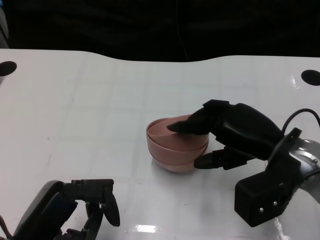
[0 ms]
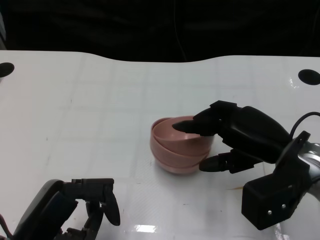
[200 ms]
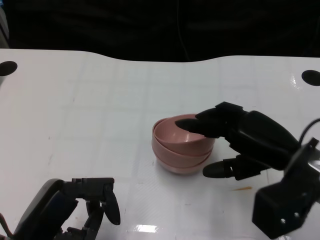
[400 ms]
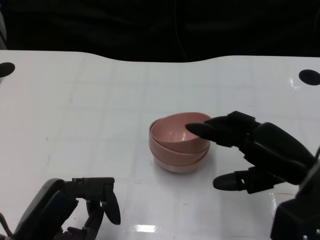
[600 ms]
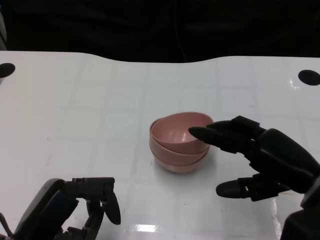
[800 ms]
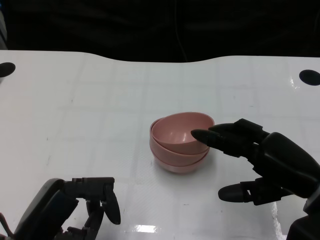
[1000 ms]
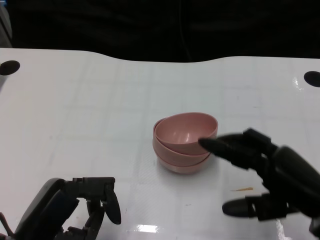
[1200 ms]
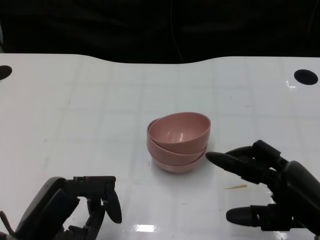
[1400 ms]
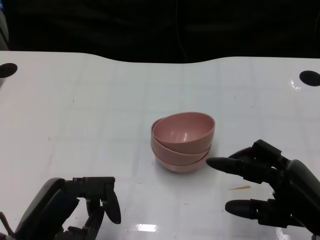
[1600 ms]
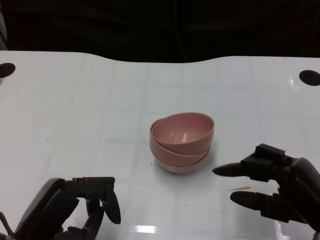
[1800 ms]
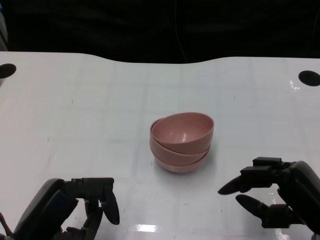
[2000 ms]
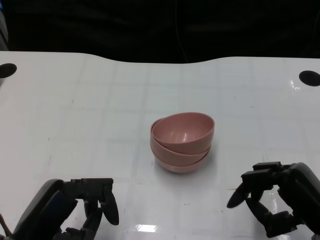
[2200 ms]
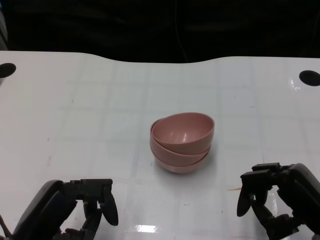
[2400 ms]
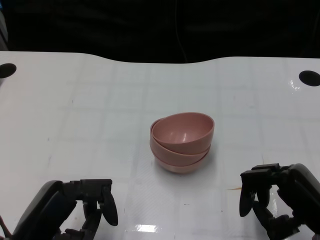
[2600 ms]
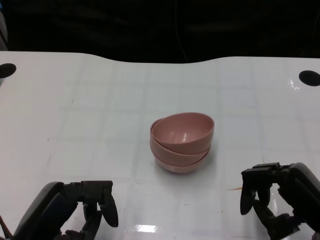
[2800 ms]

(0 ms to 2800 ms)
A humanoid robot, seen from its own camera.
Task of the whole recording: Pick up the bowl on one side of the table and place it on top of the middle bowl, then pick up the bowl on the other side of the table and place it on top of the middle bowls.
0 ms - 1400 ms: The right hand heads backward and to the right, covering approximately 10 cm.
1400 ms - 2800 ms: The hands stay close to where they were, moving slightly.

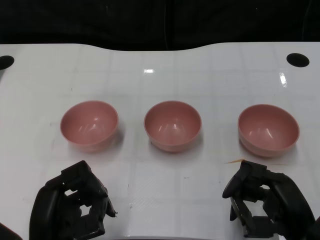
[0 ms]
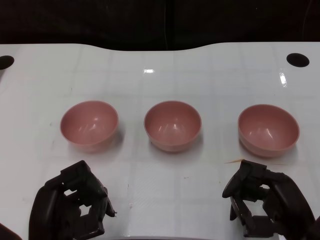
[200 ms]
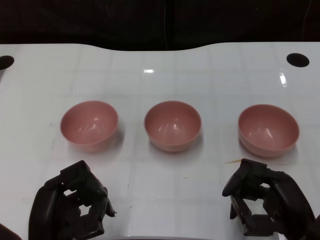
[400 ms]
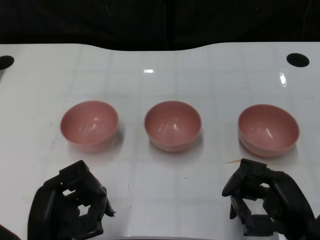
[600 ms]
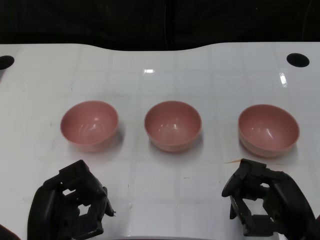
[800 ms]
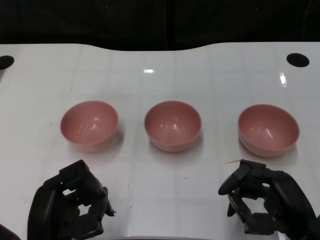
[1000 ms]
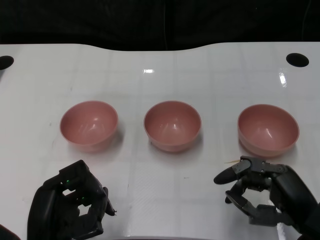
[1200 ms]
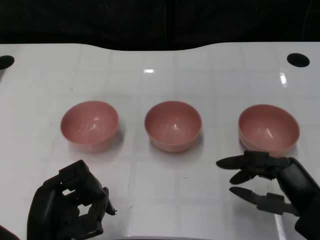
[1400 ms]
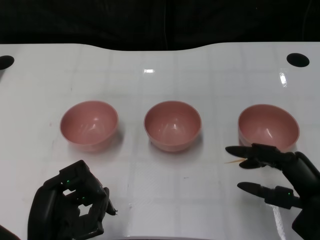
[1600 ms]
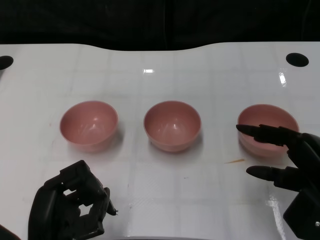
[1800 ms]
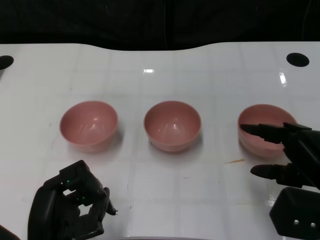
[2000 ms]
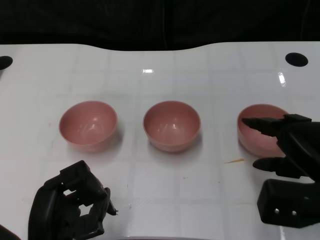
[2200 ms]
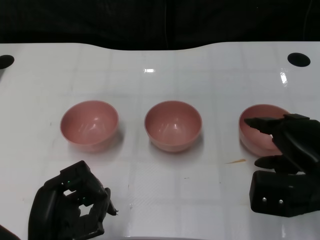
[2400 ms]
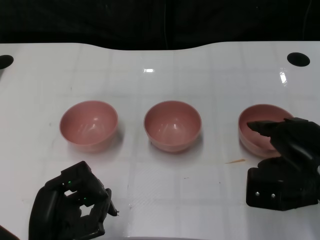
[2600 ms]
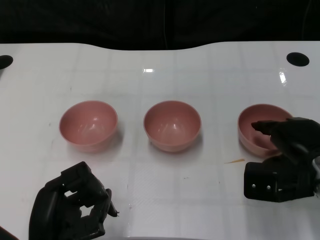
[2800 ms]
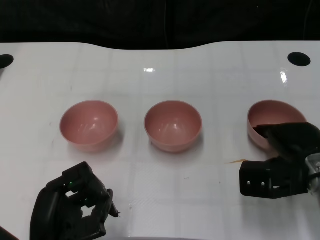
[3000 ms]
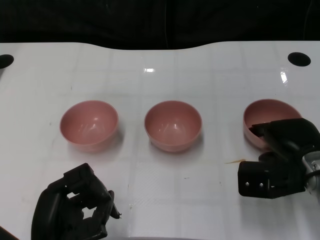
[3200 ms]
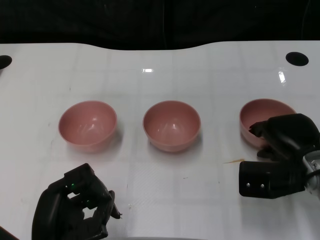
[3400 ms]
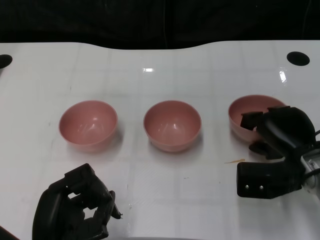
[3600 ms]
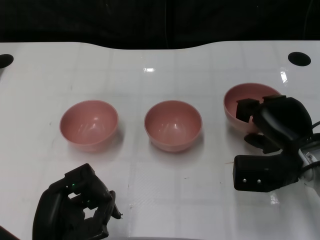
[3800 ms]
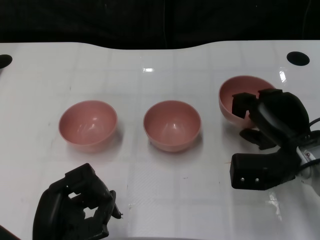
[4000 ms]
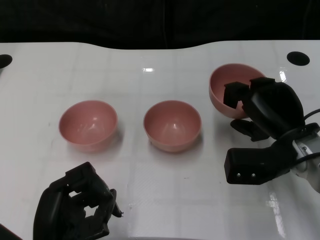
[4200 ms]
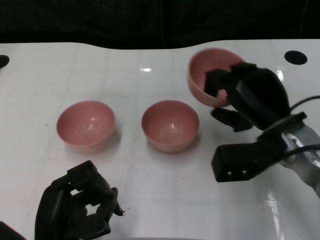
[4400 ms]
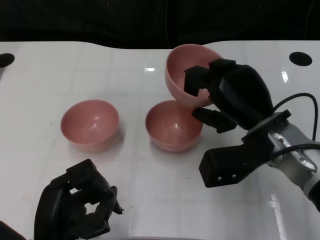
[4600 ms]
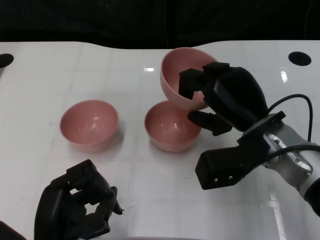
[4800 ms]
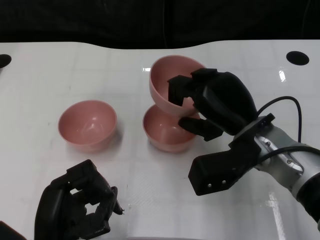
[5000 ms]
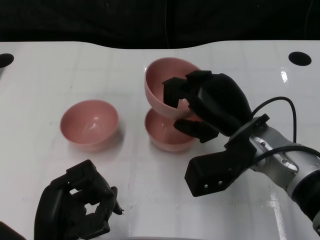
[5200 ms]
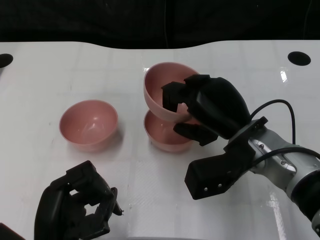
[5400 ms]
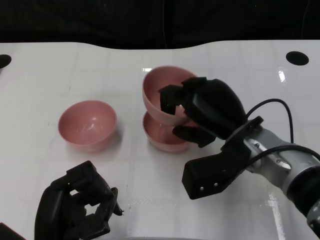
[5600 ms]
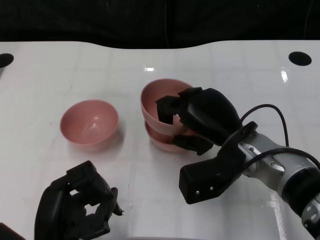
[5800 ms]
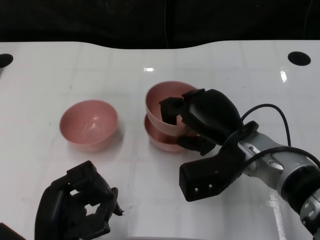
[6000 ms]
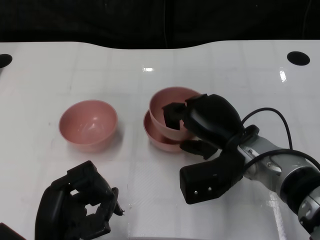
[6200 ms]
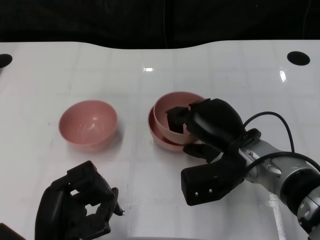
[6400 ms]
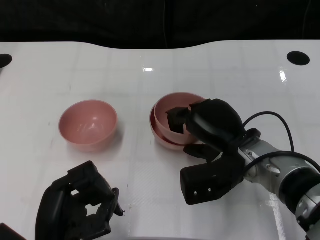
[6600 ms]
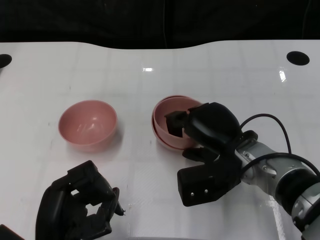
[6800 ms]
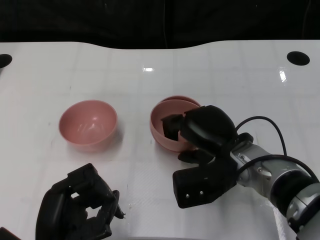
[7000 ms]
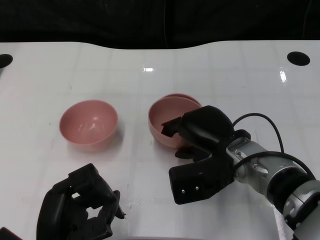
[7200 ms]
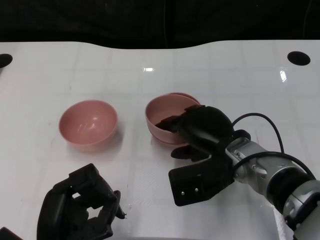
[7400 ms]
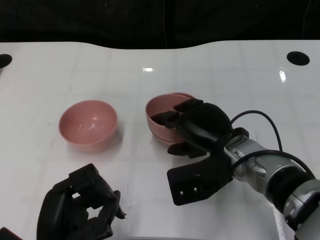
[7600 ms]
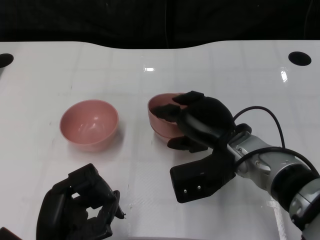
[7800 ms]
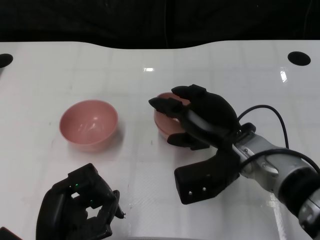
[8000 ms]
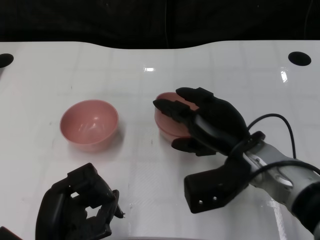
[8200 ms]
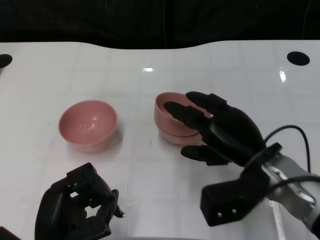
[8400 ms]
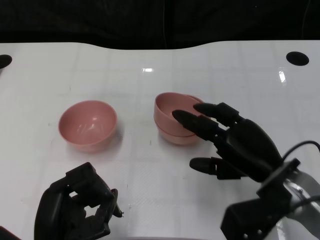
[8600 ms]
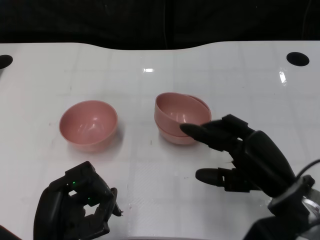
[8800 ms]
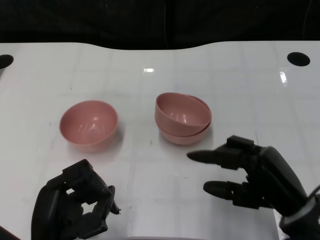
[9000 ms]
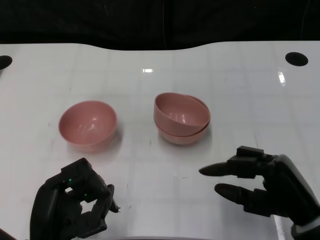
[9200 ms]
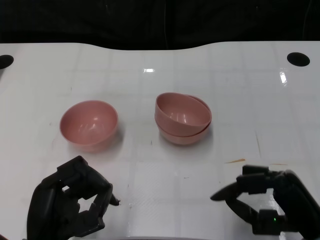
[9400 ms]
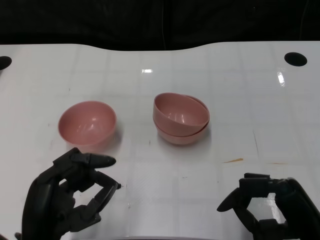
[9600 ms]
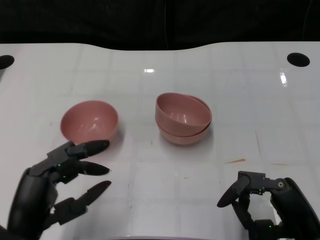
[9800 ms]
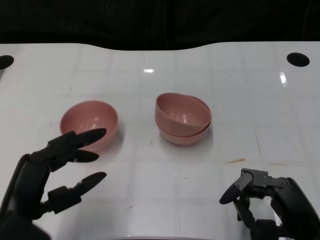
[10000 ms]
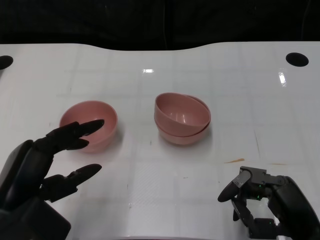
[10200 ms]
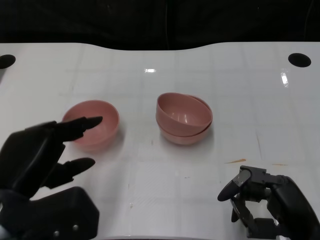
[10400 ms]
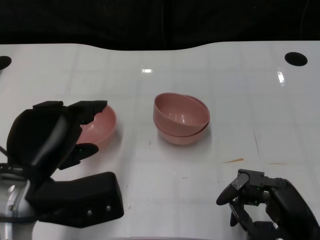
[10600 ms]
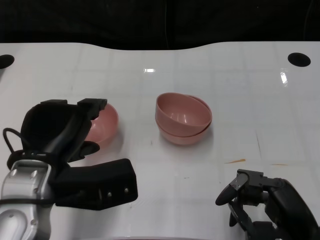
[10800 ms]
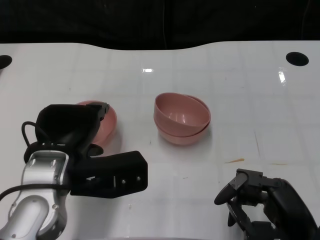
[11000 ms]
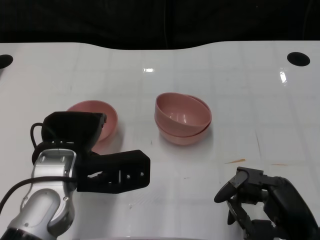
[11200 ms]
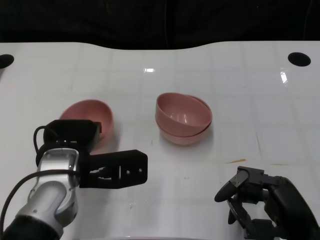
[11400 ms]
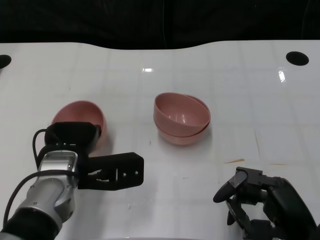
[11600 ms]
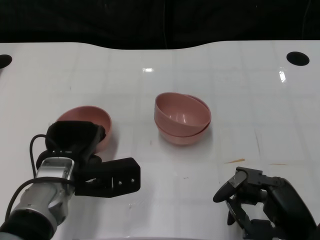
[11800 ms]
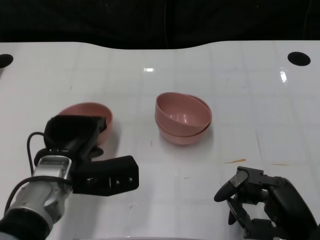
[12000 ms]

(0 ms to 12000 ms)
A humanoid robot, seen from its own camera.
Task of the whole recording: Pick up the bowl on one side of the table and place it on top of the middle bowl, then pick up the bowl on the other side of the table and place it on top of the middle bowls.
Step, 1000 ms - 3600 ms: Grasp the bowl on the right with the right gripper.
Step, 3800 ms - 8600 ms: Place the bowl on the right onto the bowl in the middle with right gripper.
Step, 8800 ms - 11800 ms: Grasp the bowl on the left with the left gripper.
1600 ms - 3000 ms: The right hand moves forward, about 10 cm.
3000 ms - 4400 ms: The right hand is displaced to the left by about 5 cm.
4400 ms - 6000 ms: The right hand travels to the left by approximately 5 cm.
6000 ms - 7600 ms: The hands make only small movements.
7600 ms - 9000 ms: The right hand moves to the right and backward, about 15 cm.
9000 ms - 10400 ms: The left hand moves upward, some 10 cm.
10400 ms - 12000 ms: The left hand heads forward, downward and to the right, covering roughly 15 cm.

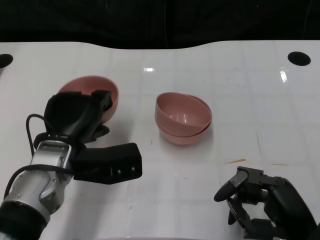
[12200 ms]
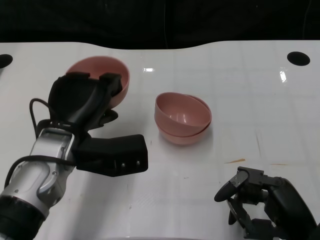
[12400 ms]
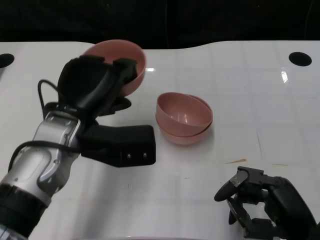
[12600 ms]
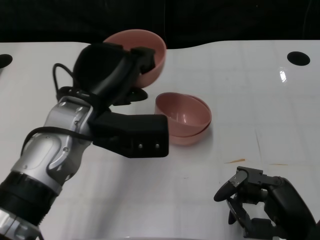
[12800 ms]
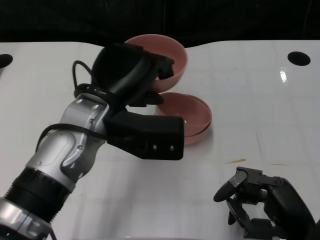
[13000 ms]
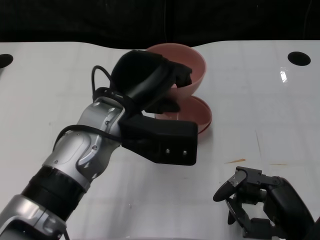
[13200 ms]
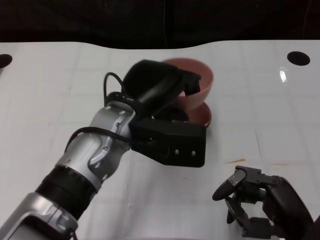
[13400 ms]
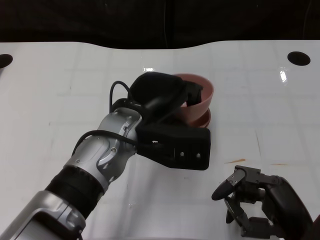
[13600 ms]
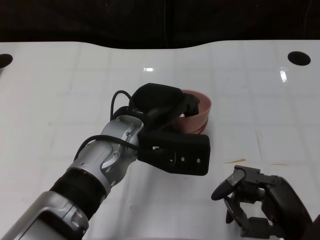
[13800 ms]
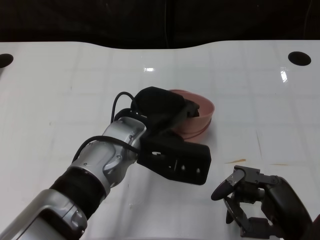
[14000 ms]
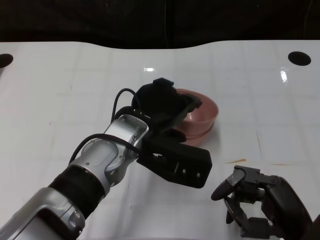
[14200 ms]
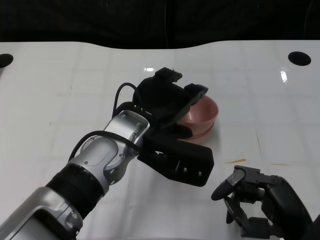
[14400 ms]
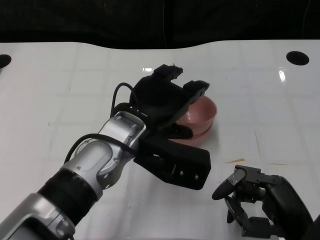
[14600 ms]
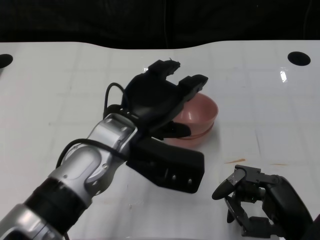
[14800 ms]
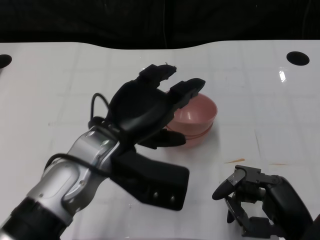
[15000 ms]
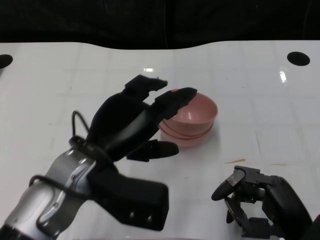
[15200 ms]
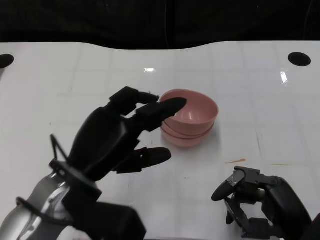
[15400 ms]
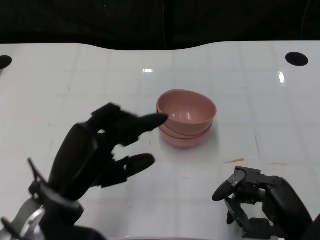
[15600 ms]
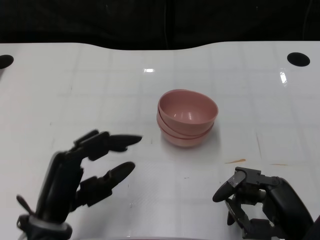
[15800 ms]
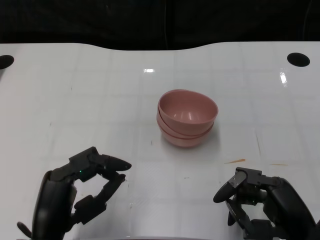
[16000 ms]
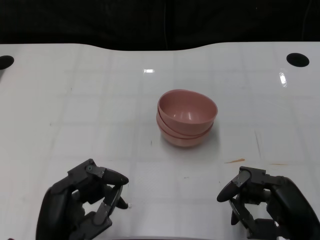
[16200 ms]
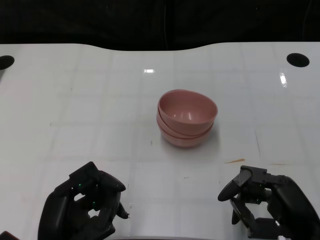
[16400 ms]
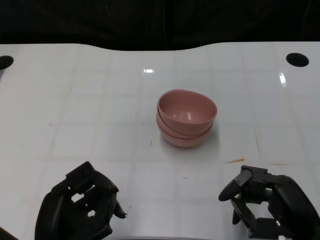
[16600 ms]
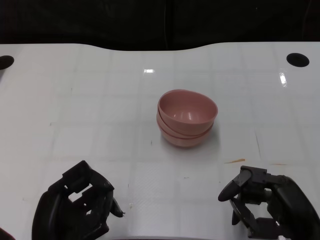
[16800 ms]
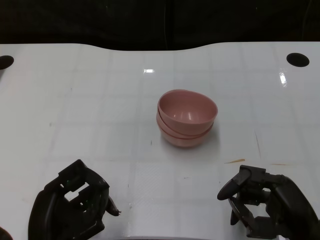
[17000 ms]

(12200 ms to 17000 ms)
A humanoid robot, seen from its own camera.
Task of the whole recording: Pick up the bowl on one side of the table and place it on top of the middle bowl, then pick up the bowl on the other side of the table and place it on top of the middle bowls.
Step, 12200 ms - 15200 ms: Place the bowl on the left onto the bowl in the middle with left gripper.
12200 ms - 13800 ms: The left hand goes some 10 cm to the right.
13800 ms - 15400 ms: The left hand moves to the left and backward, roughly 10 cm.
15400 ms - 17000 ms: The left hand moves backward and downward, approximately 10 cm.

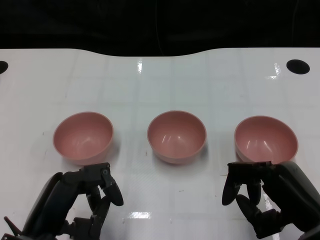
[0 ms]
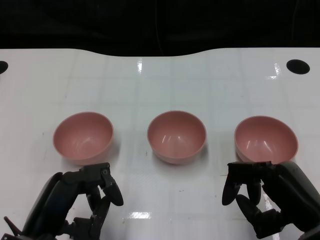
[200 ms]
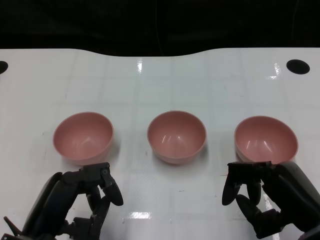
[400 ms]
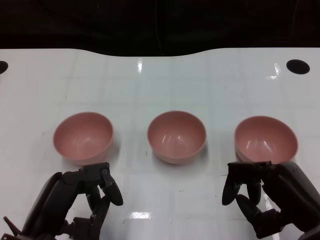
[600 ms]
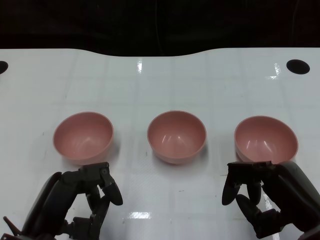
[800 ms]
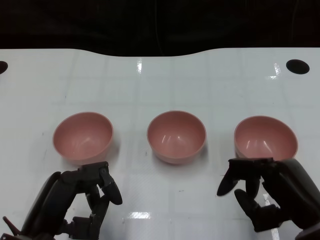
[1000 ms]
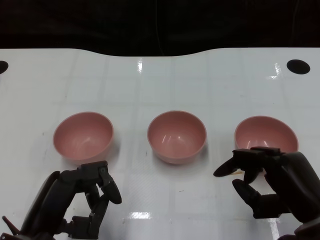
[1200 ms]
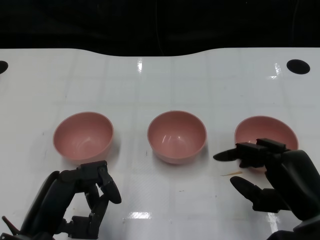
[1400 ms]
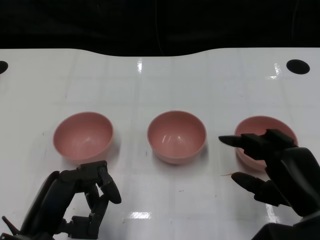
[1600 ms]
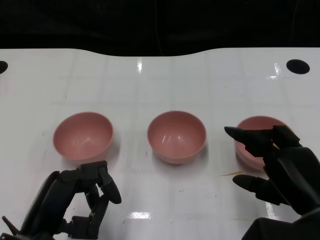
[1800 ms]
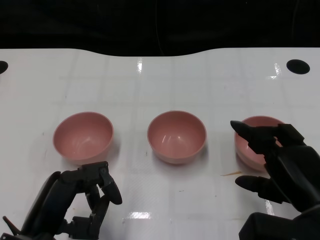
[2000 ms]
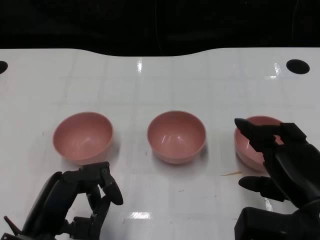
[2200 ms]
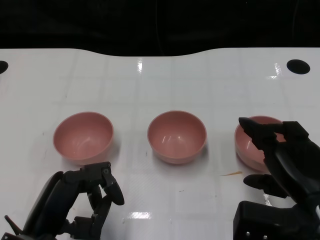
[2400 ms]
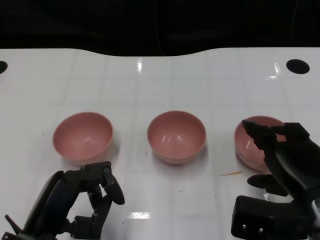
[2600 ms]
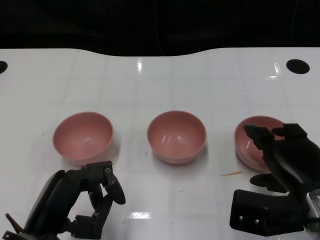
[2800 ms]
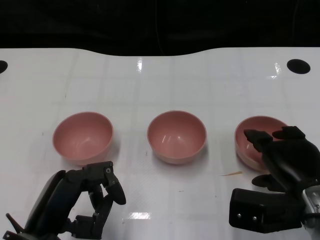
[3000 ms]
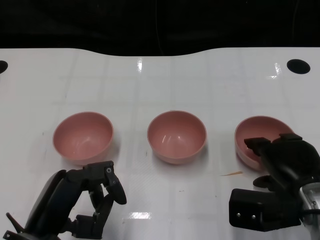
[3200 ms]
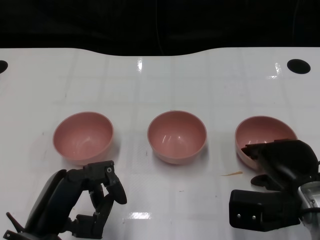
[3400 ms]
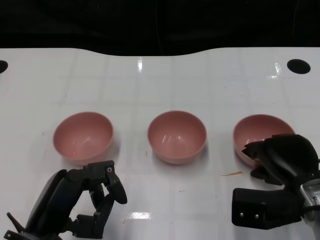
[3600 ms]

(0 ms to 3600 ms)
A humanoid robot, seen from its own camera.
Task of the whole recording: Pick up the bowl on one side of the table and place it on top of the middle bowl, then pick up the bowl on the other side of the table and place it on top of the middle bowls.
1800 ms - 3600 ms: The right hand travels forward by some 5 cm.
